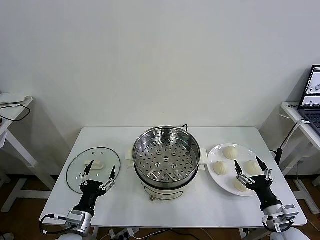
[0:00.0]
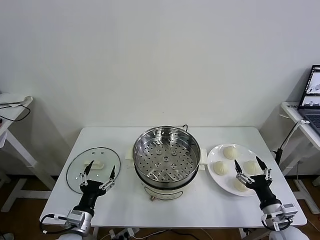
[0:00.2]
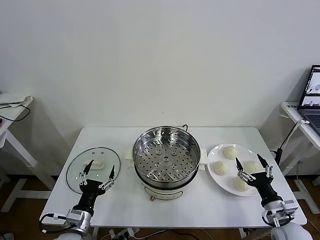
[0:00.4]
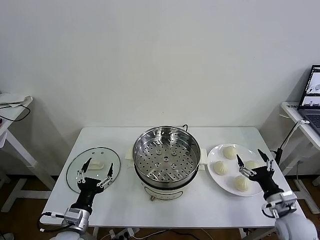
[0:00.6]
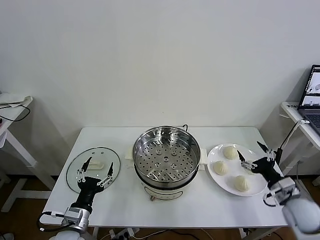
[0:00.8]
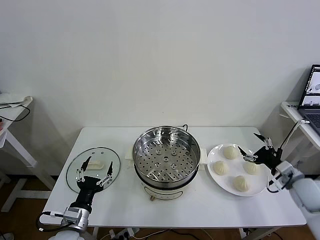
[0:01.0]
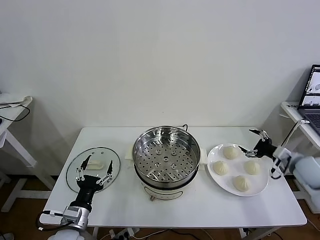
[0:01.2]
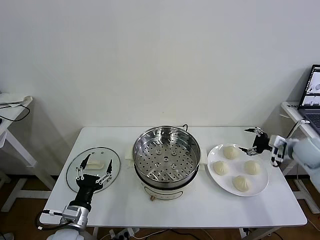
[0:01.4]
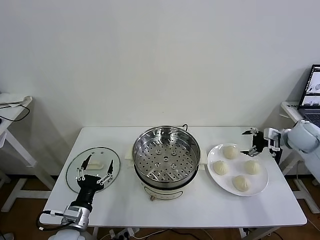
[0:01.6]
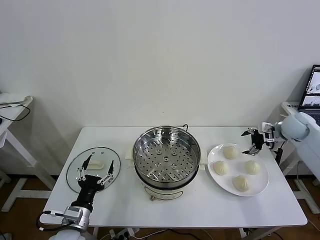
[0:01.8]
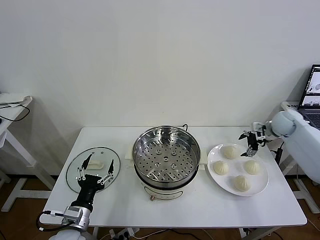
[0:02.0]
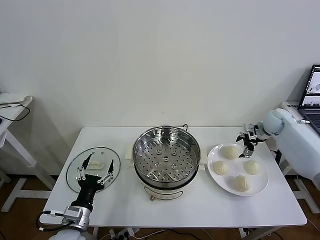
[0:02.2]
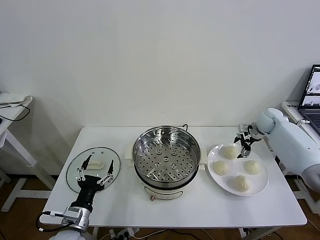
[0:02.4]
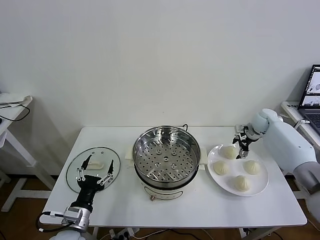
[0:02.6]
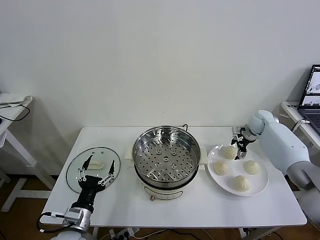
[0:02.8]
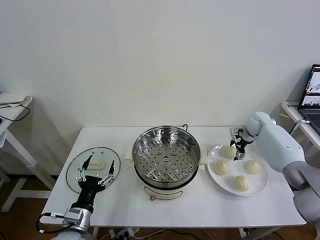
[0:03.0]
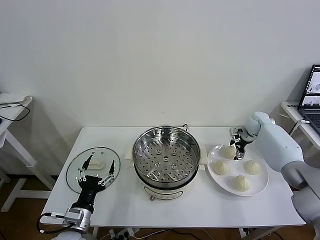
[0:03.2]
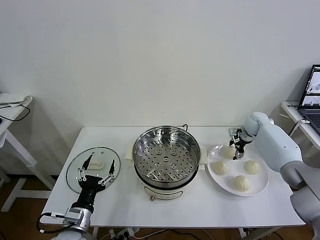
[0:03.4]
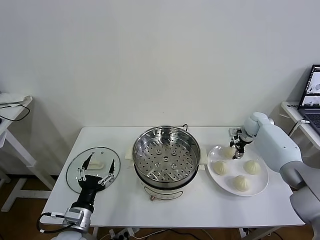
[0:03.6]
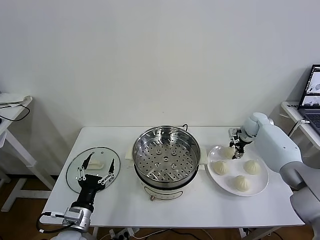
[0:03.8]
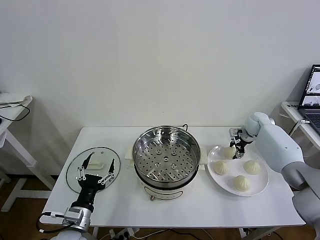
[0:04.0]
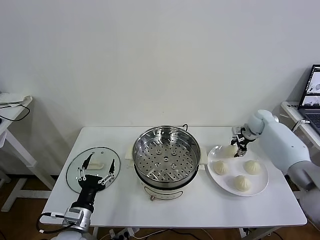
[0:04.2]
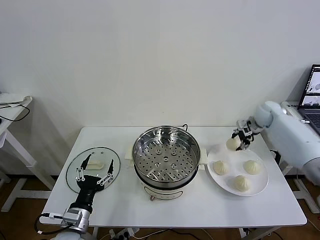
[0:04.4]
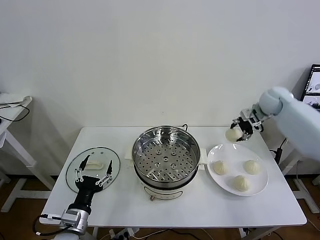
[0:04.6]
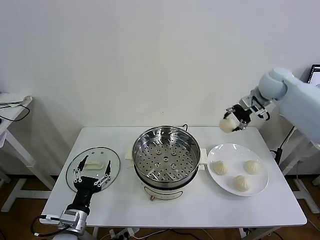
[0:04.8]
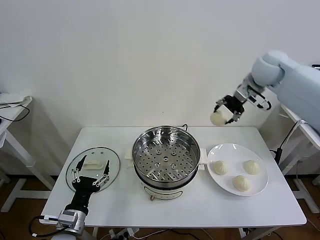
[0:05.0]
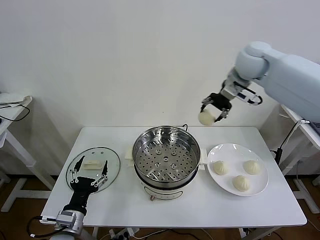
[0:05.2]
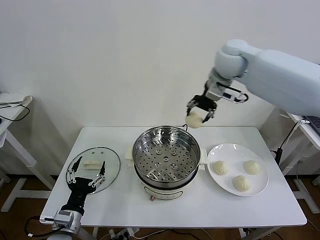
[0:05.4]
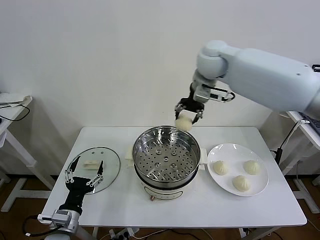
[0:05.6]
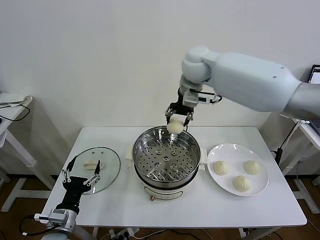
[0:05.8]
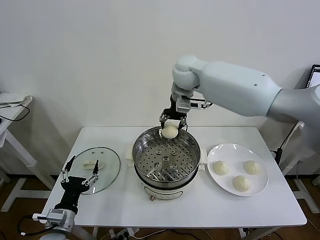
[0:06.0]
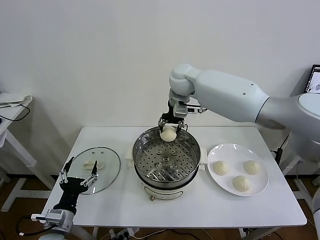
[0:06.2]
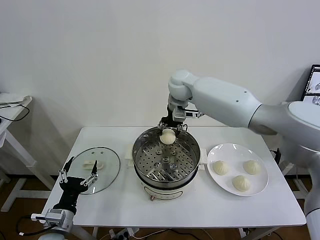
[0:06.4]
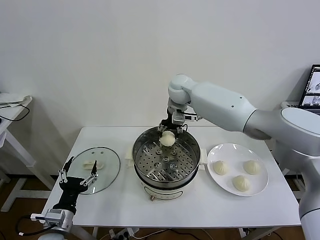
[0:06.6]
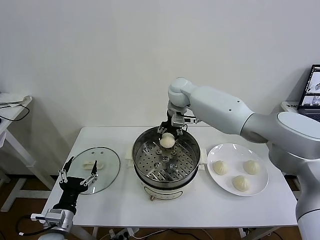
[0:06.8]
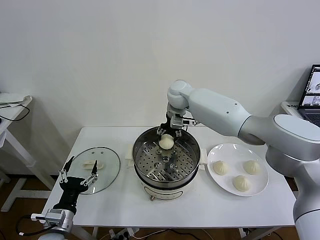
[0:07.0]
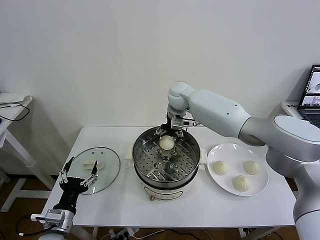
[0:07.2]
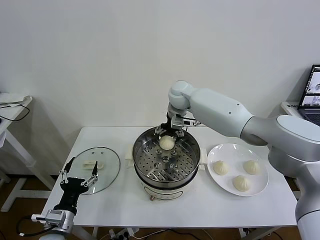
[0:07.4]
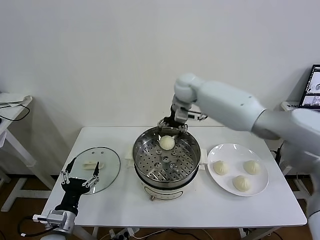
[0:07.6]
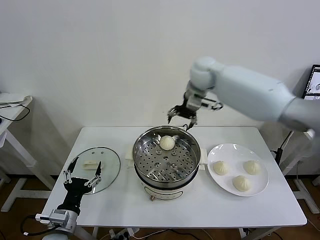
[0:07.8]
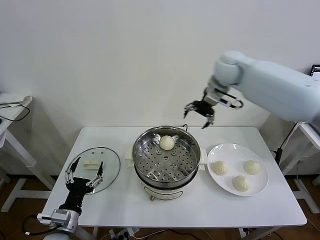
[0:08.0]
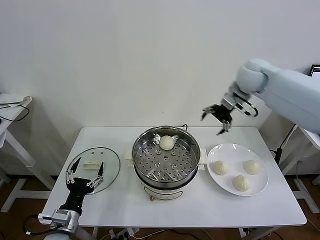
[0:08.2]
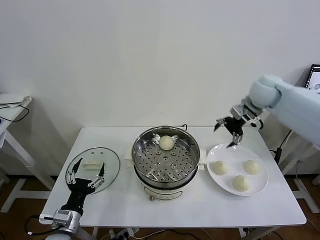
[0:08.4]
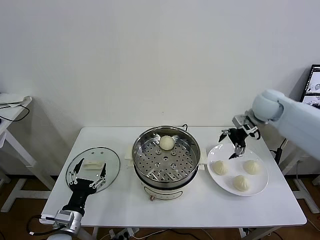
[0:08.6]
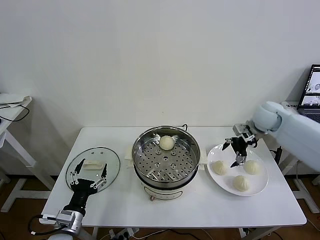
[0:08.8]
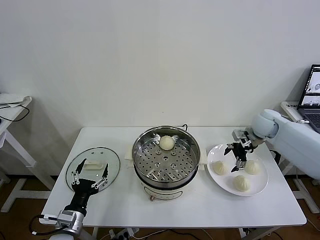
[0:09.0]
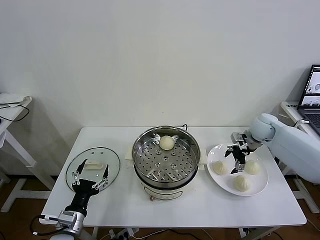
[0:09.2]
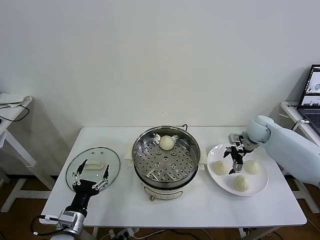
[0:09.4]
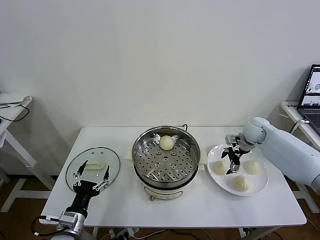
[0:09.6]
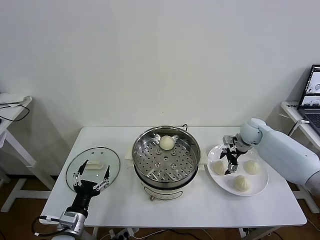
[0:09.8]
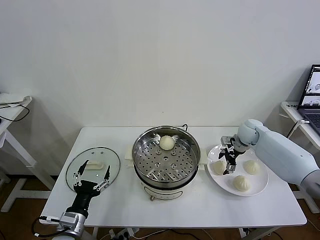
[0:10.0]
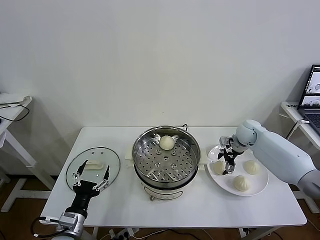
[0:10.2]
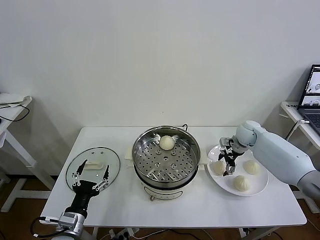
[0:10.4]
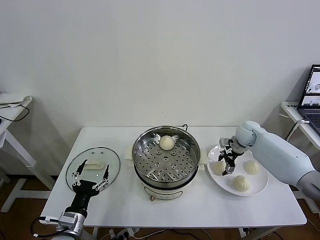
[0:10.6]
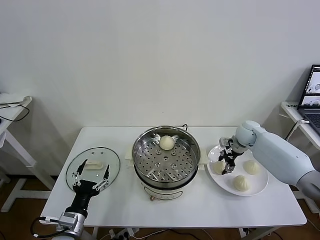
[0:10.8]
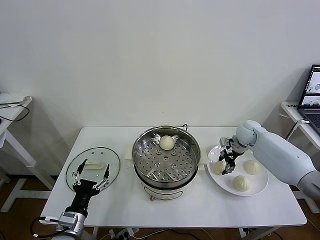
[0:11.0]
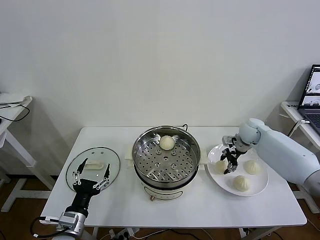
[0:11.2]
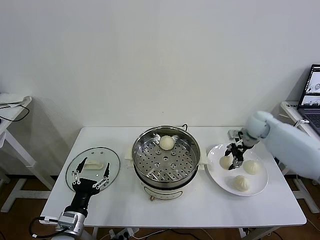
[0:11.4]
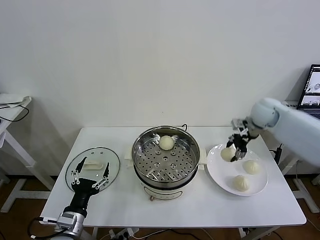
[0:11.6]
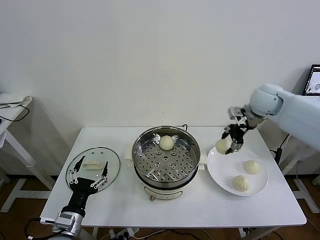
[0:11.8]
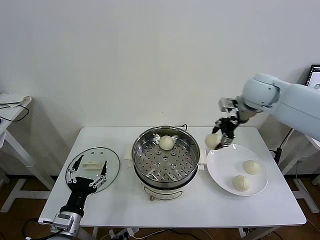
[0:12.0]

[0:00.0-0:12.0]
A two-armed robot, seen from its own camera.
Task of the whole recording: take steamed baozi put them in steamer then cover it.
Step, 0:00.0 to 0:03.8: Grasp the baozi in the plate with right gripper.
Step, 0:04.2 to 0:07.2: Place the baozi on the steamer with right gripper.
Step, 0:07.4 to 0:10.8: Grasp the baozi in the plate with right gripper.
0:01.6 to 0:03.0: The right gripper travels forward, downward and to the left by some 15 cm.
0:03.0 to 0:04.4: The right gripper moves upward, about 10 cm, and closes its fingers.
0:04.4 to 0:06.0: The right gripper shifts roughly 35 cm to the left.
0:06.0 to 0:07.6: The right gripper moves some 10 cm downward and comes back, and opens its fingers.
0:07.6 to 0:09.0: The right gripper shifts some 30 cm to the right and downward.
0:09.0 to 0:10.4: The right gripper shifts some 5 cm downward.
0:10.4 to 0:12.0: The right gripper is displaced upward by about 25 cm, and closes its fingers.

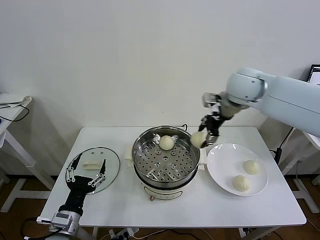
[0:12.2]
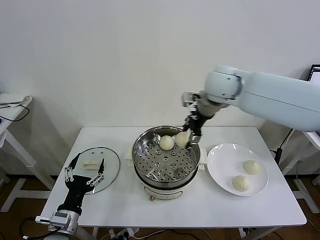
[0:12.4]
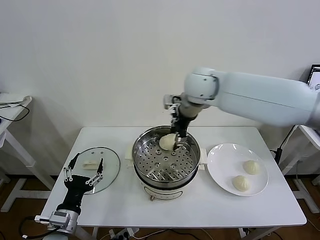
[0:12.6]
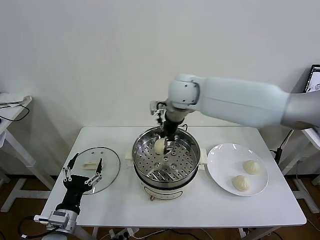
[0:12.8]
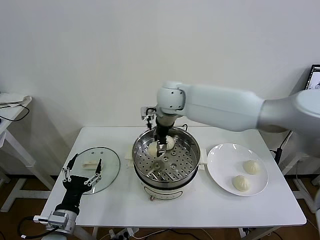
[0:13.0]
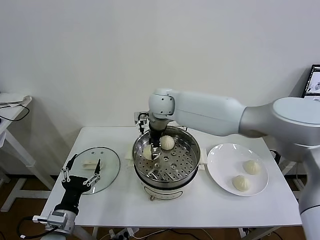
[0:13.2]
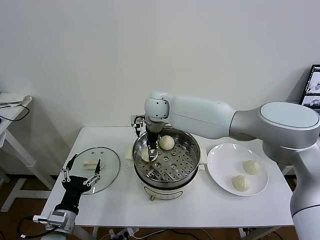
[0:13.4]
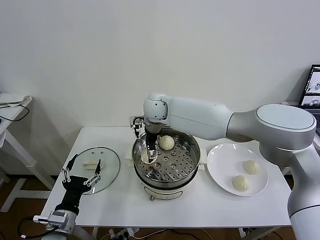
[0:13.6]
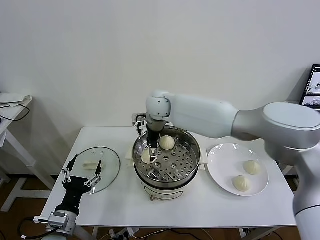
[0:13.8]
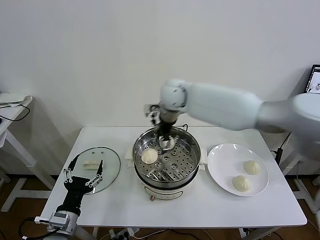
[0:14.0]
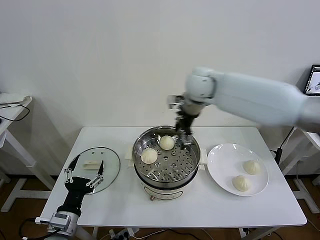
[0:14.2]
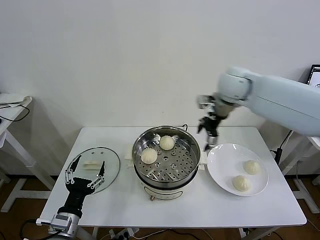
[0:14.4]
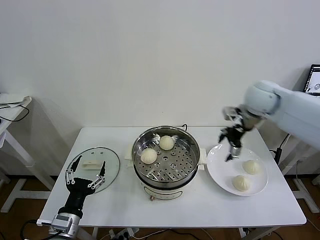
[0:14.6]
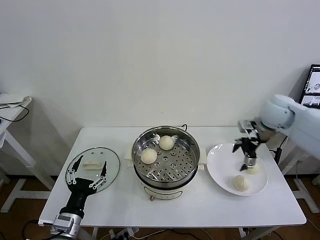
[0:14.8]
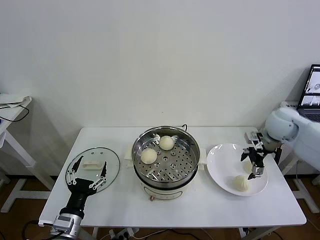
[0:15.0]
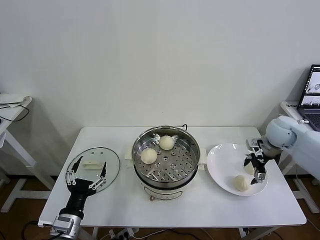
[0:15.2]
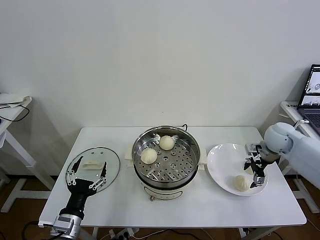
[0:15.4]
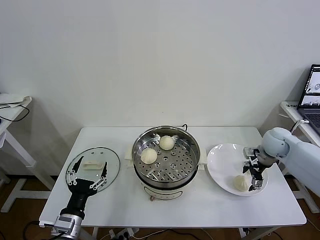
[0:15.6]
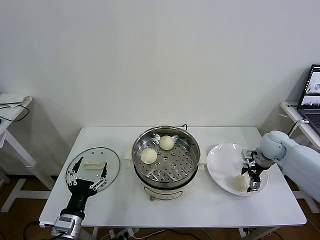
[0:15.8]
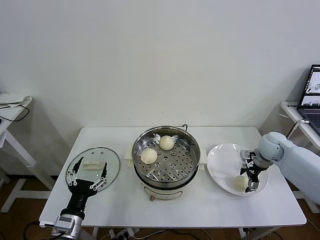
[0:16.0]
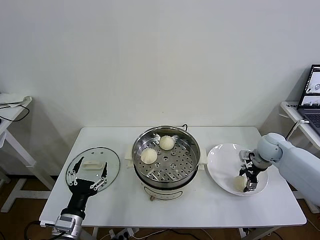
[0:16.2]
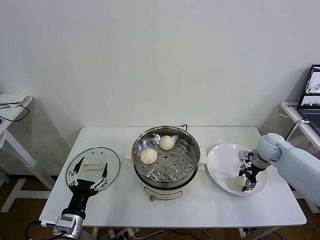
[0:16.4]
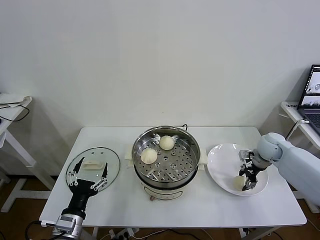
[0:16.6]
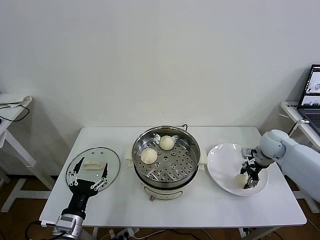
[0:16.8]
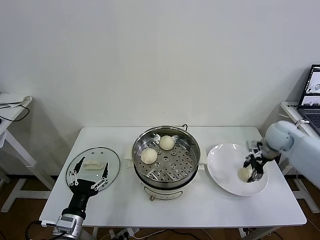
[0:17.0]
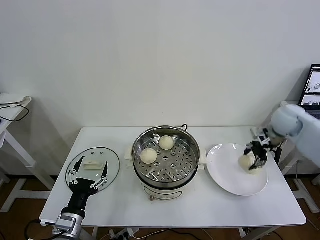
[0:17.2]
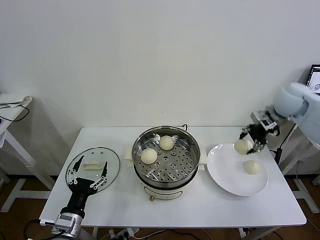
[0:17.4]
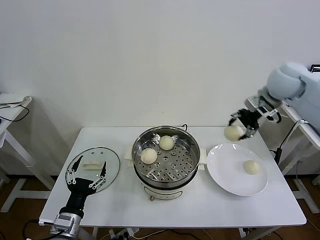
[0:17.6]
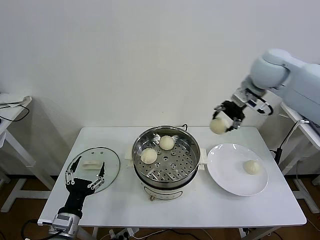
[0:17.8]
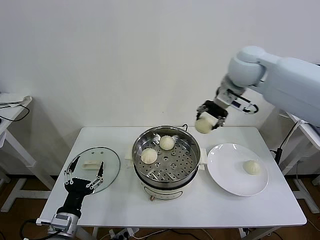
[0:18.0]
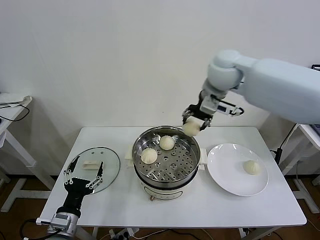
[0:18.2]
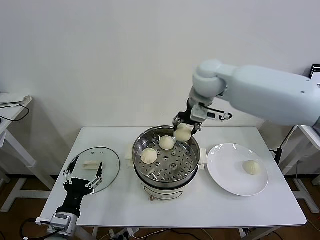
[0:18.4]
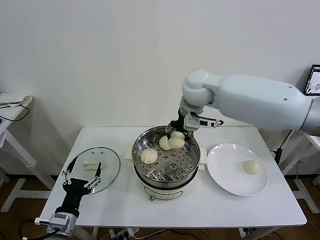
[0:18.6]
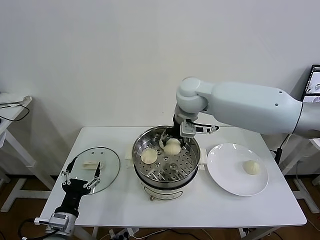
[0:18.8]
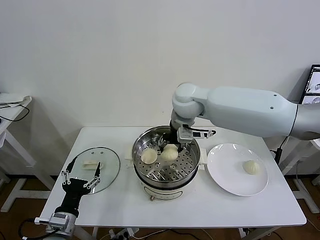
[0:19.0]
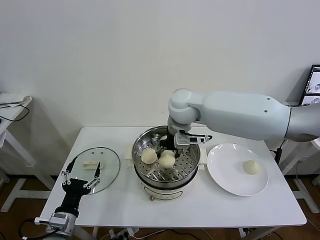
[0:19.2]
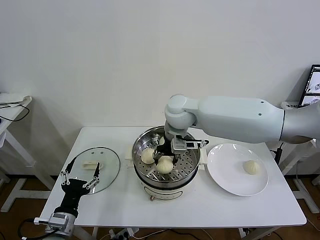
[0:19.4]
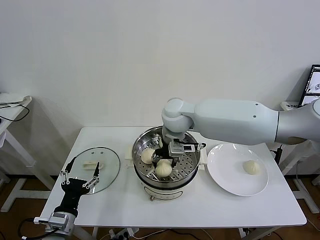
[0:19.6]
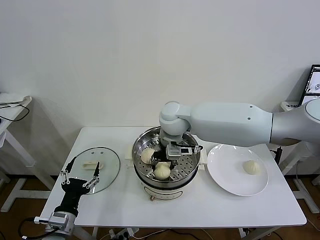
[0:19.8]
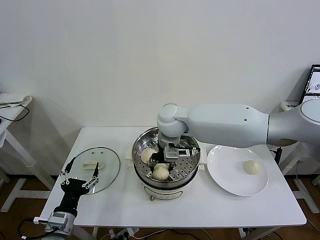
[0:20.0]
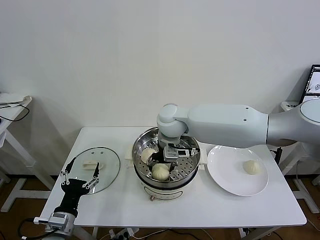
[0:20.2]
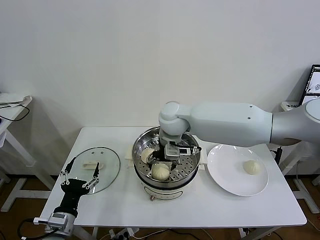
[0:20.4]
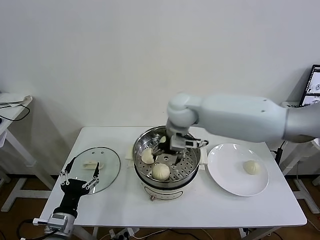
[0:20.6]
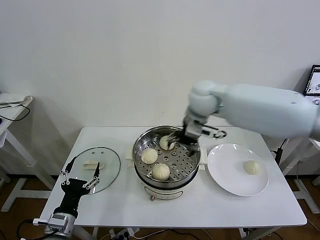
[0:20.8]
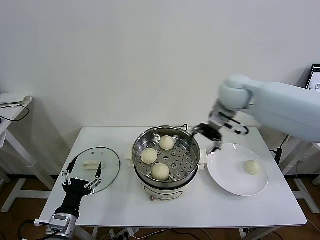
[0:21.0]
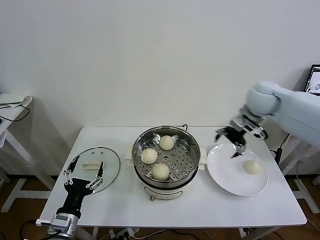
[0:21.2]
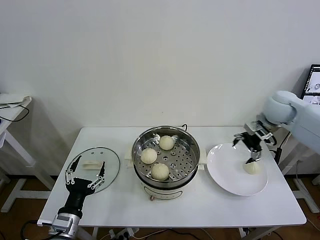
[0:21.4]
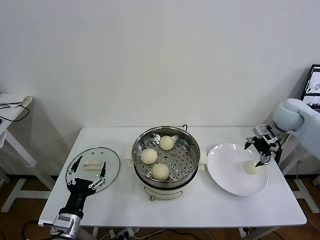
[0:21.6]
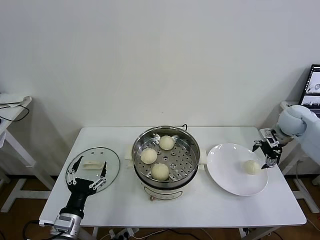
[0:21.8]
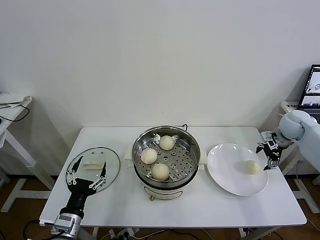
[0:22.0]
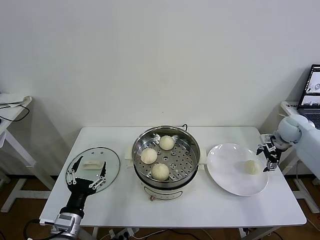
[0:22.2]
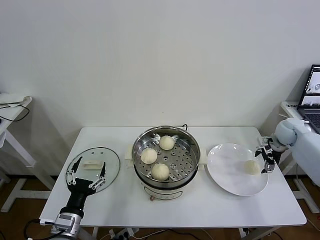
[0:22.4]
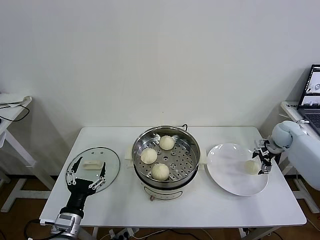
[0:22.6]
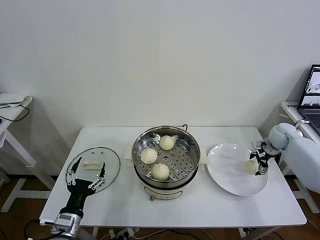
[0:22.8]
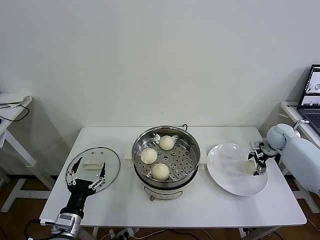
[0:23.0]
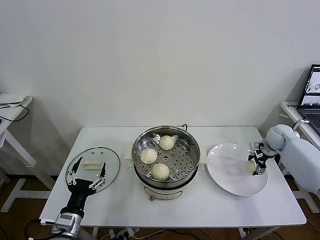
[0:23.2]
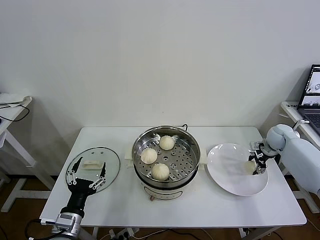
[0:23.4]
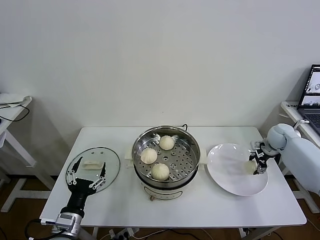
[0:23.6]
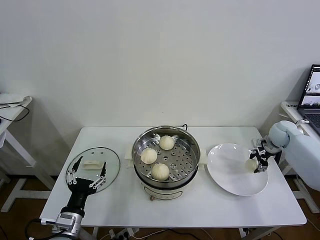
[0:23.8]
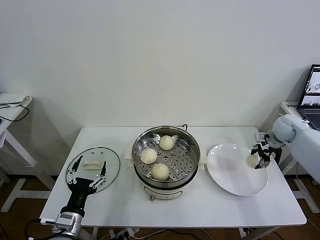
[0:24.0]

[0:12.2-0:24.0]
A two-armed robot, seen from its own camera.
Task of the whole recording: take steamed baozi put them in steamer then cover it.
Step, 0:12.2 to 0:13.6: Place the baozi on the steamer with right gripper.
Step, 0:13.8 to 0:16.6: Grasp the baozi in the plate with right gripper.
Step, 0:16.8 to 0:20.4: Place the baozi on the steamer with right gripper.
Step, 0:20.6 to 0:23.4: Grasp the baozi in the plate with right gripper.
0:12.2 to 0:13.6: The right gripper heads to the left and downward, covering about 25 cm, and opens.
0:13.6 to 0:15.2: The right gripper shifts about 40 cm to the right.
0:15.2 to 0:16.6: The right gripper heads downward, covering roughly 5 cm, and closes.
0:16.6 to 0:18.2: The right gripper moves upward and to the left, about 35 cm.
0:18.2 to 0:19.6: The right gripper moves downward and to the left, approximately 15 cm.
0:19.6 to 0:21.0: The right gripper is displaced to the right by some 20 cm, and opens up.
0:21.0 to 0:22.6: The right gripper heads to the right and downward, covering approximately 30 cm.
0:22.6 to 0:24.0: The right gripper closes.
